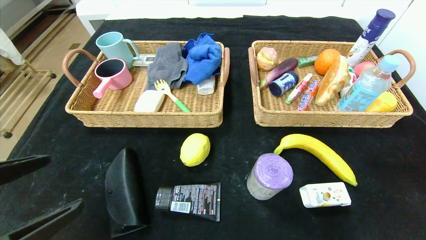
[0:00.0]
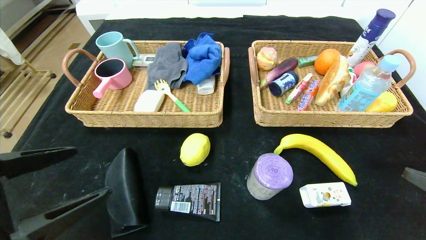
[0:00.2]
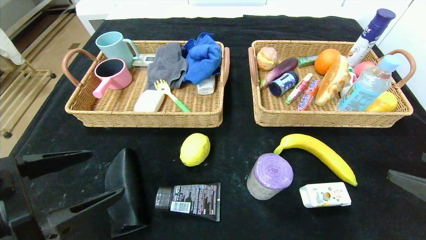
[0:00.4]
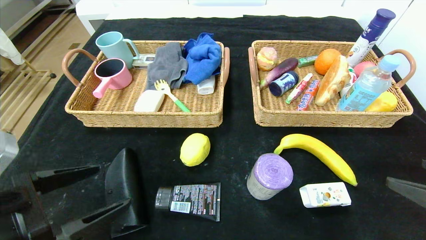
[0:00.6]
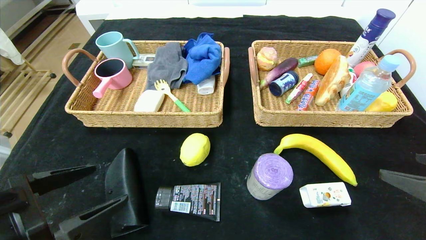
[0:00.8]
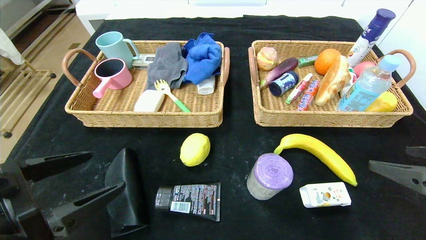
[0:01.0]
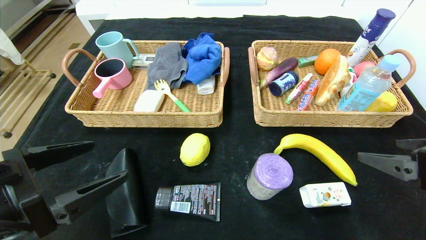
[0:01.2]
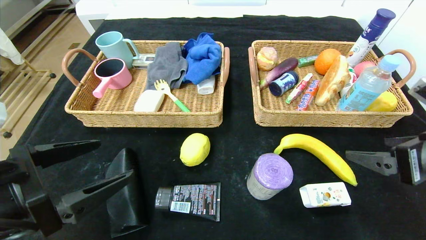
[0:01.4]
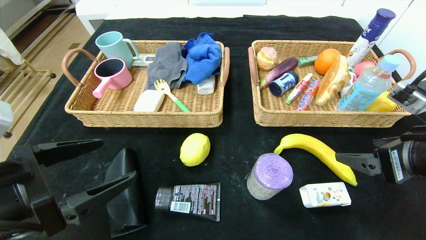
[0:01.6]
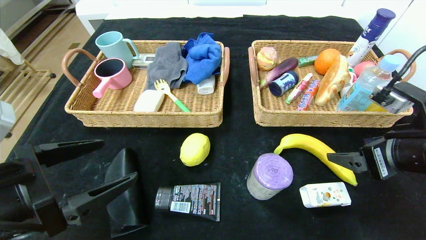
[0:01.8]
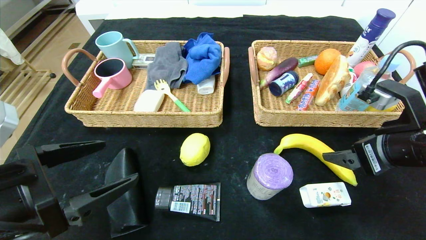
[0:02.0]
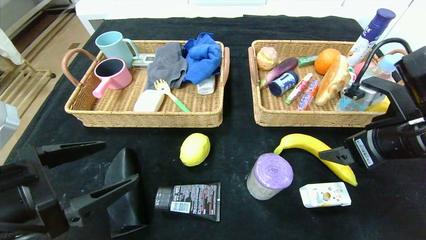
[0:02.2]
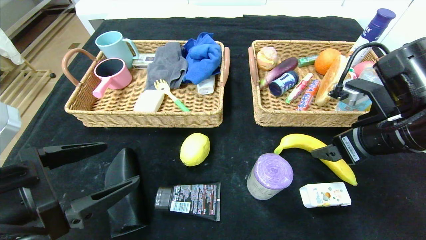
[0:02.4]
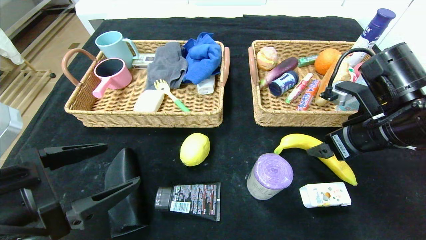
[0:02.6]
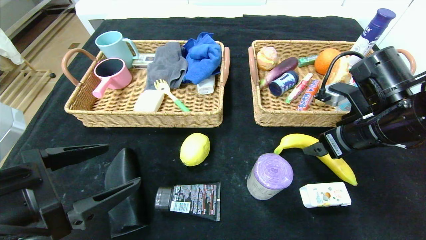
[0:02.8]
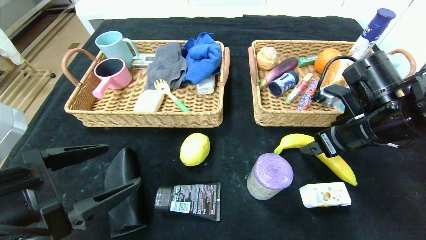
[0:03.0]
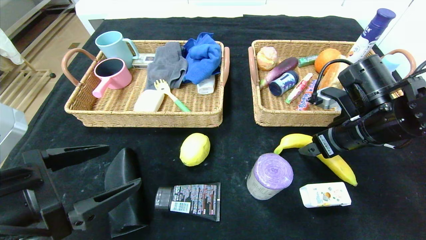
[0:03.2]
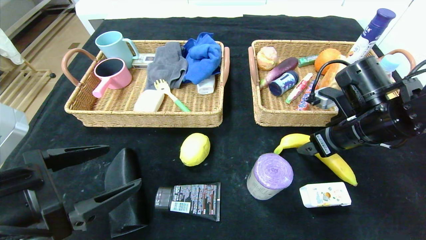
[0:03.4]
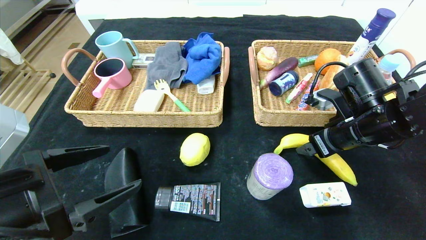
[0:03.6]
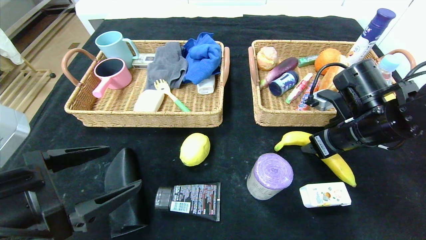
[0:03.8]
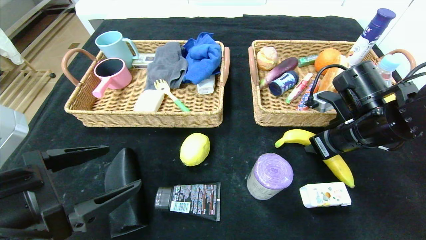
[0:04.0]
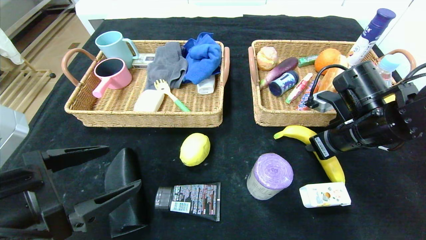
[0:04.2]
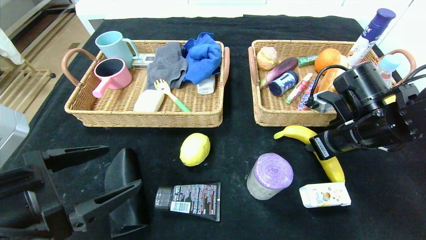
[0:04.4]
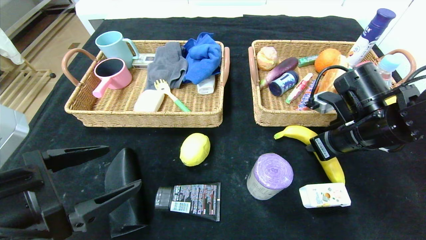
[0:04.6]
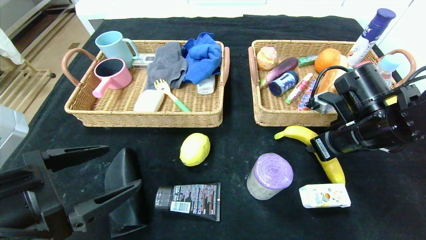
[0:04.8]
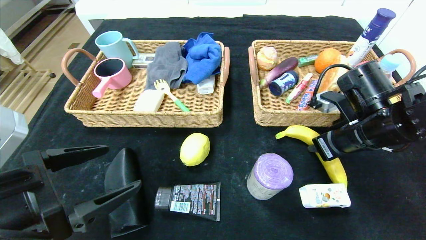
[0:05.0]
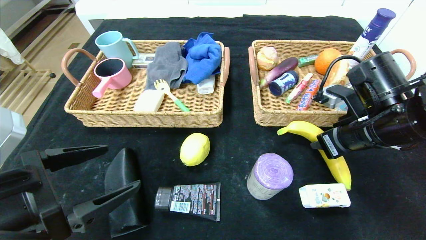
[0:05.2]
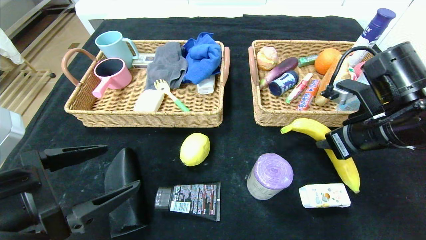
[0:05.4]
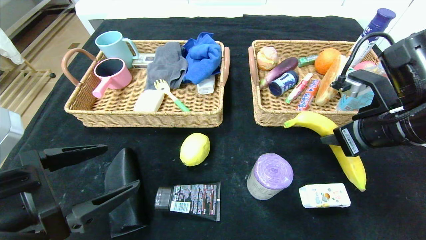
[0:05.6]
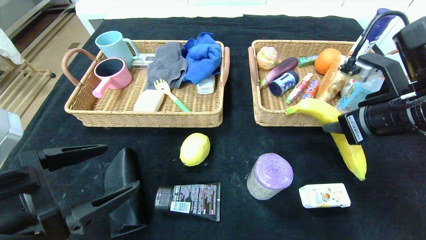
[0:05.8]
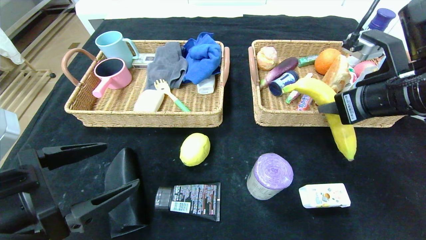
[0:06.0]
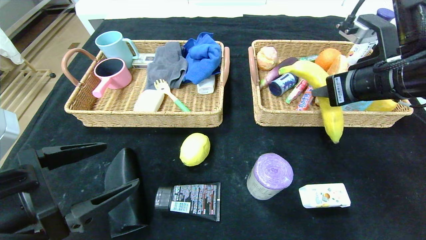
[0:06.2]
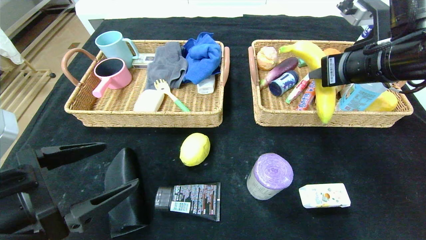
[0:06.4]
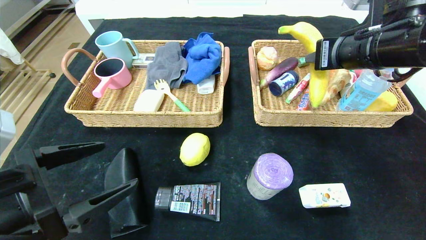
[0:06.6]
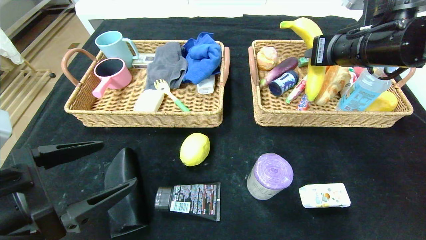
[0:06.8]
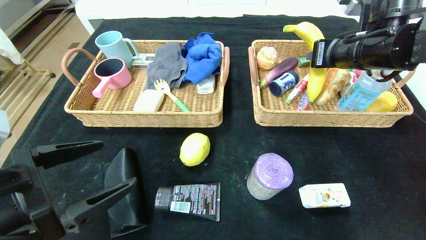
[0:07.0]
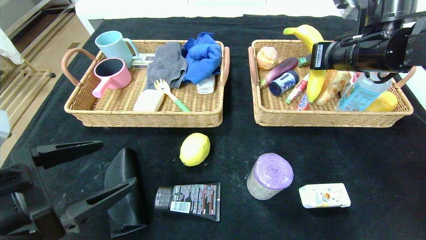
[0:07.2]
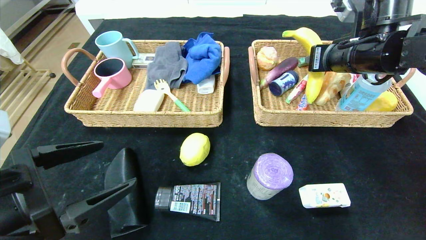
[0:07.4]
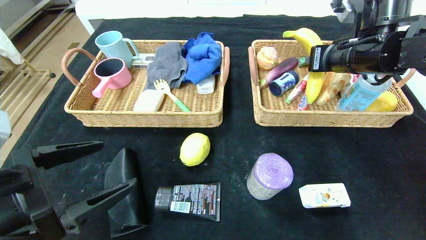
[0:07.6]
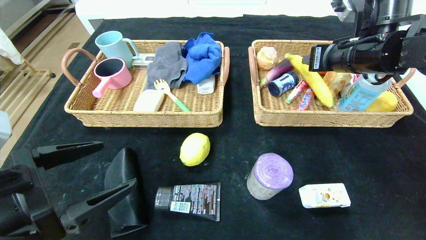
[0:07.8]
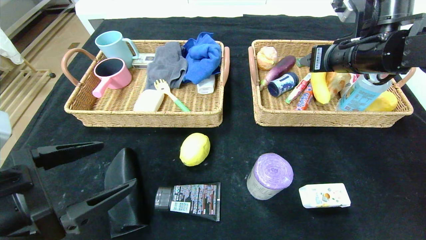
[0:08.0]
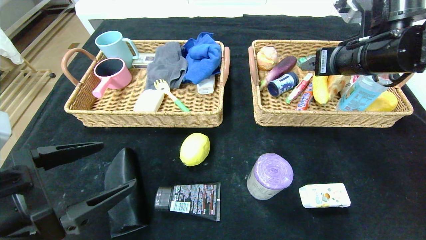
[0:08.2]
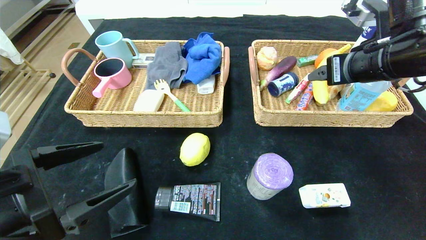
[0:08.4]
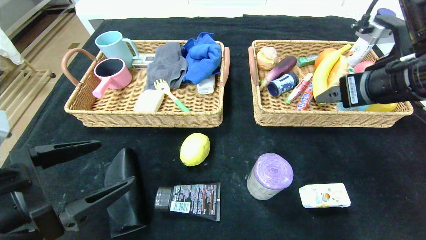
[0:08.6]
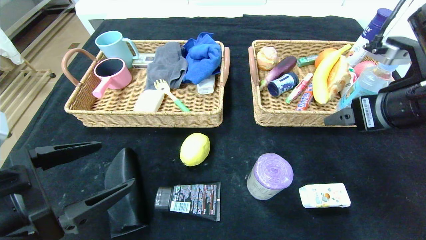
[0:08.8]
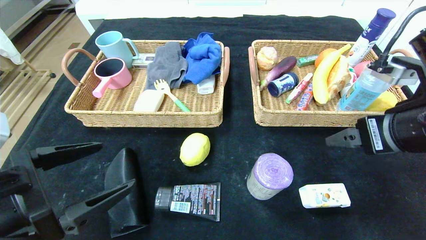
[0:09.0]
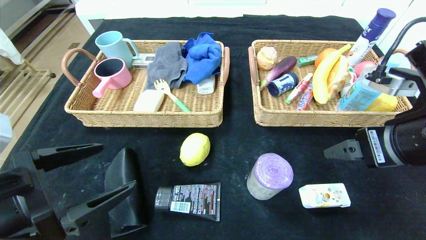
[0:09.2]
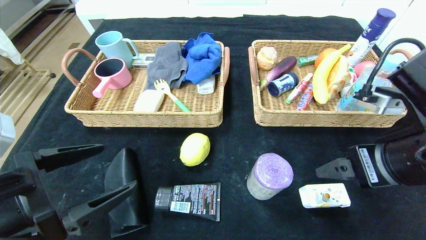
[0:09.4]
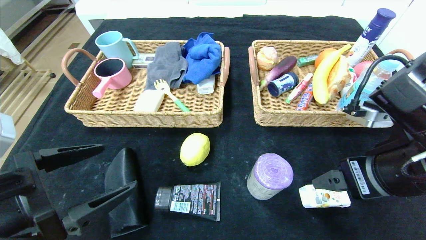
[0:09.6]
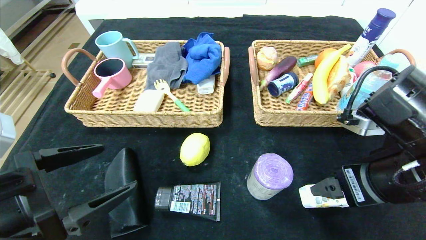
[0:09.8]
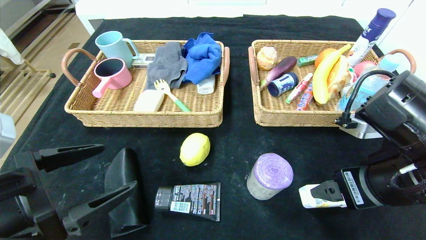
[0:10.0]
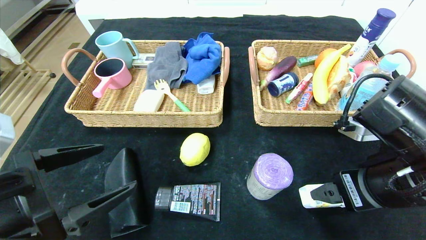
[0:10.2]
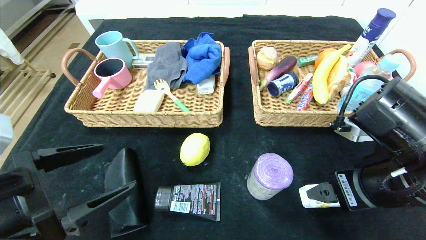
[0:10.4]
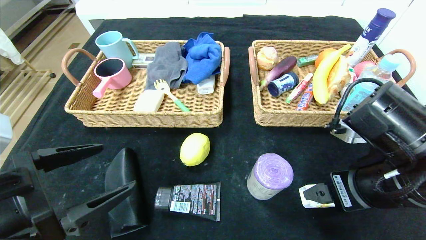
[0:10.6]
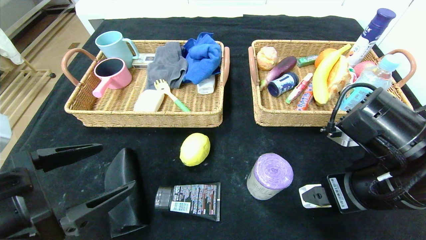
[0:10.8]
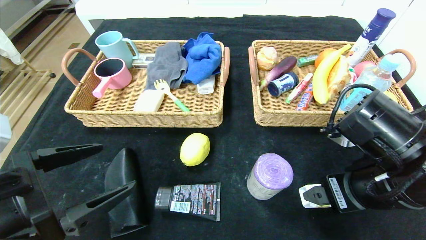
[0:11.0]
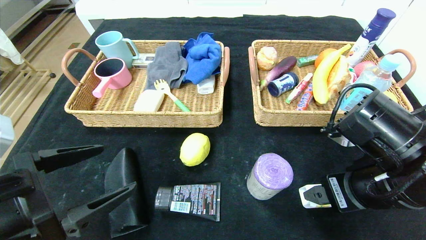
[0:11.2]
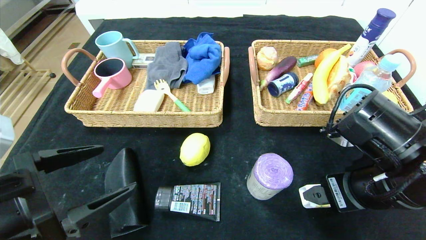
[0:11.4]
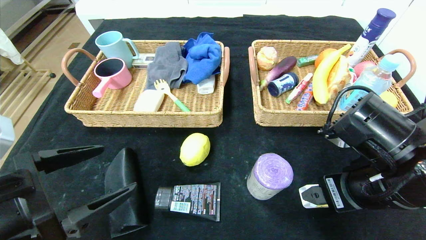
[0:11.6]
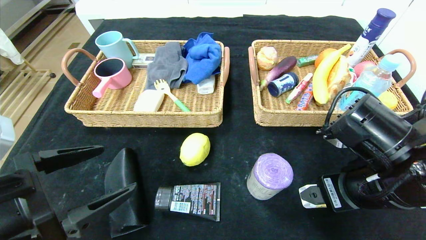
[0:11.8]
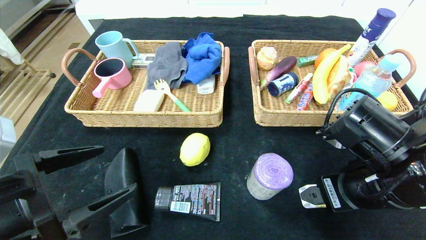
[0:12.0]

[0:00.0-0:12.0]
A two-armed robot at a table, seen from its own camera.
Step, 0:00.0 to 0:08.6: Grasp the banana and put it in the right basket.
0:00.0 to 0:01.6: The right gripper moves forward and to the left, about 15 cm. Meanwhile the left gripper shifts roughly 5 cm forward.
0:01.6 to 0:03.0: The right gripper goes some 10 cm forward.
0:03.0 to 0:04.4: The right gripper closes up.
0:04.4 to 0:06.0: The right gripper goes approximately 10 cm upward.
0:06.0 to 0:07.6: The right gripper travels forward by approximately 10 cm.
0:07.6 to 0:09.0: The right gripper heads backward, covering approximately 15 cm, and opens its fingers.
0:09.0 to 0:10.4: The right gripper is displaced downward by some 5 cm.
0:10.4 to 0:12.0: The grippers make only small movements.
